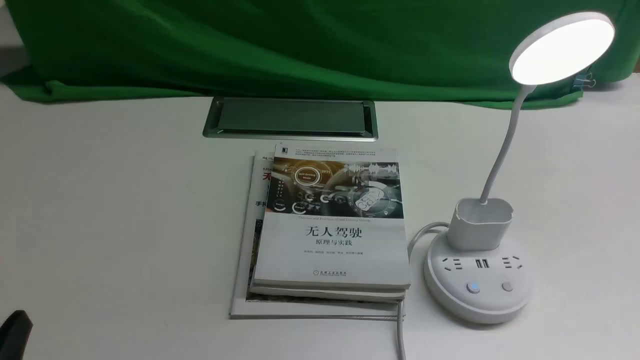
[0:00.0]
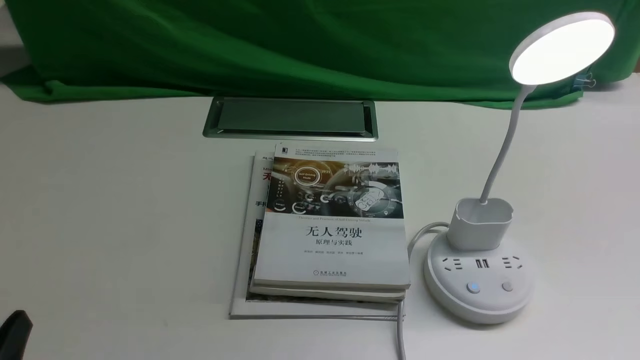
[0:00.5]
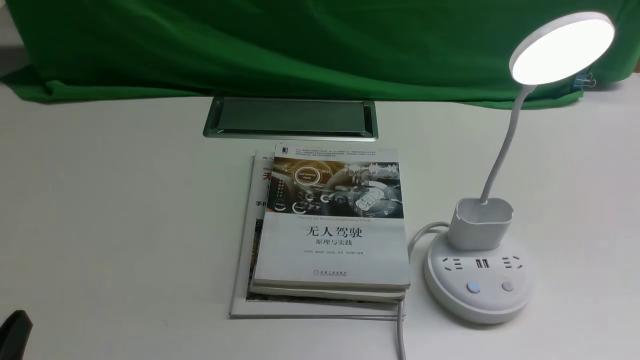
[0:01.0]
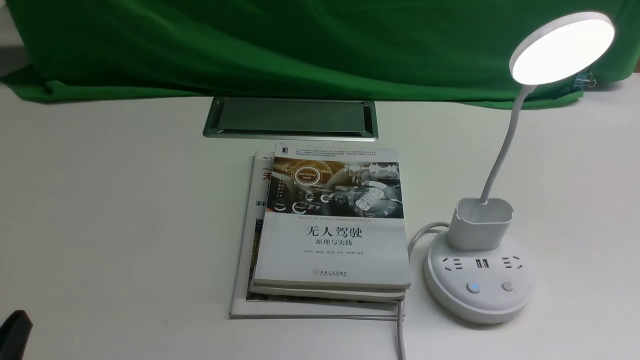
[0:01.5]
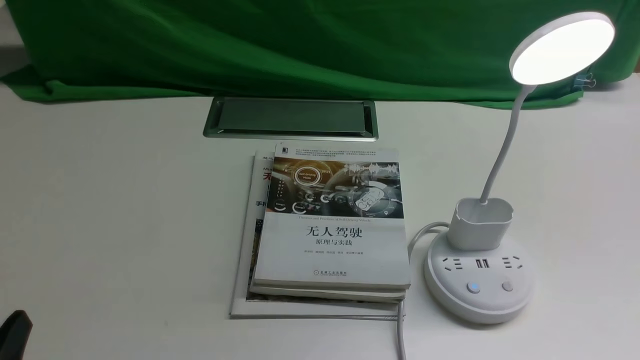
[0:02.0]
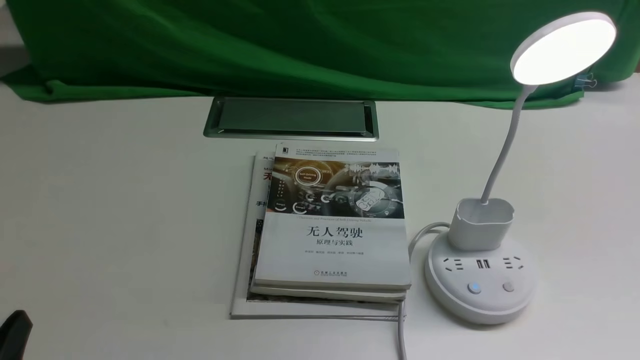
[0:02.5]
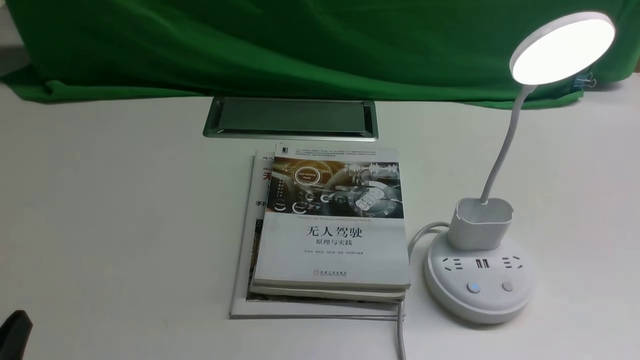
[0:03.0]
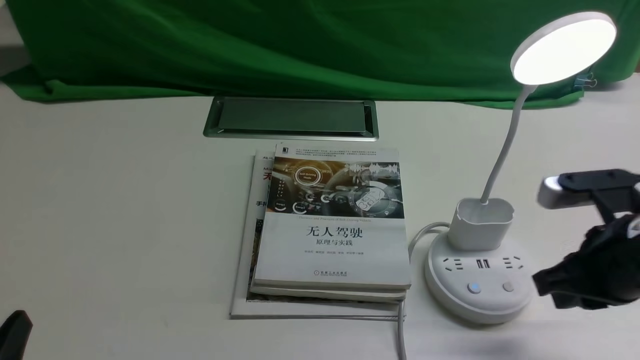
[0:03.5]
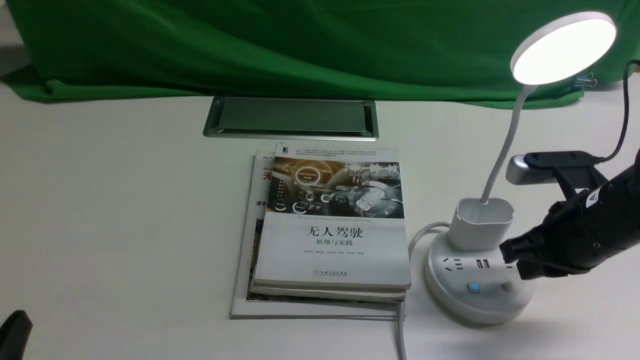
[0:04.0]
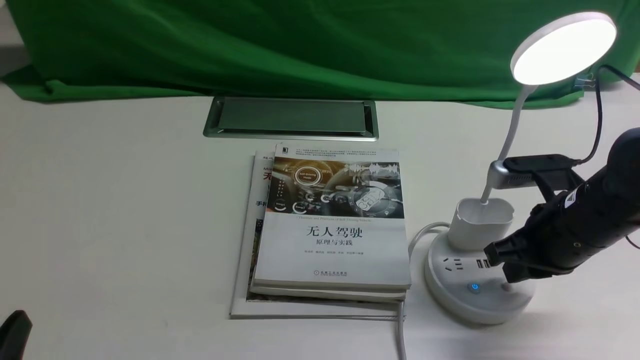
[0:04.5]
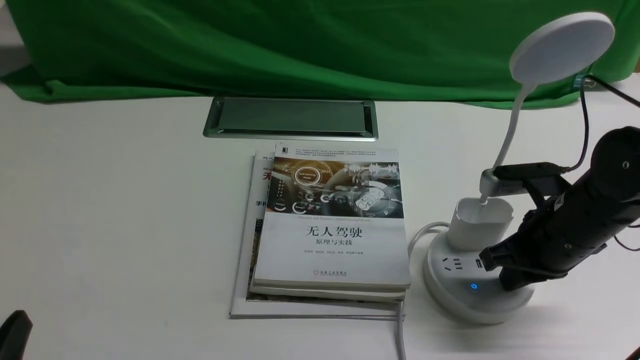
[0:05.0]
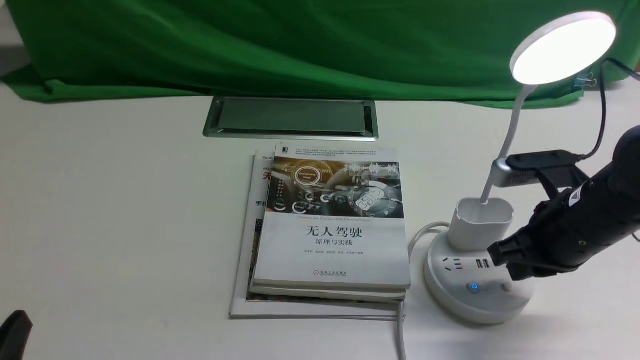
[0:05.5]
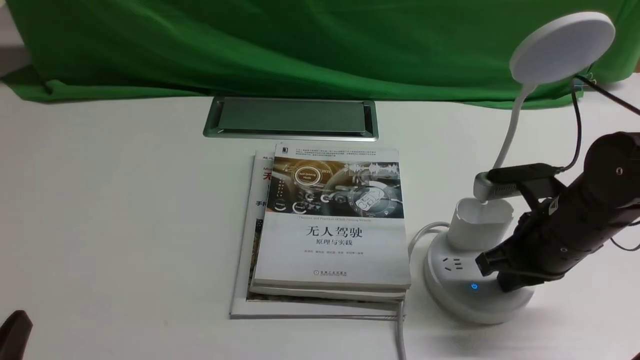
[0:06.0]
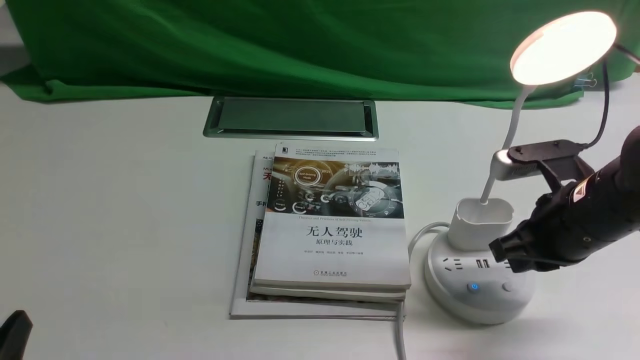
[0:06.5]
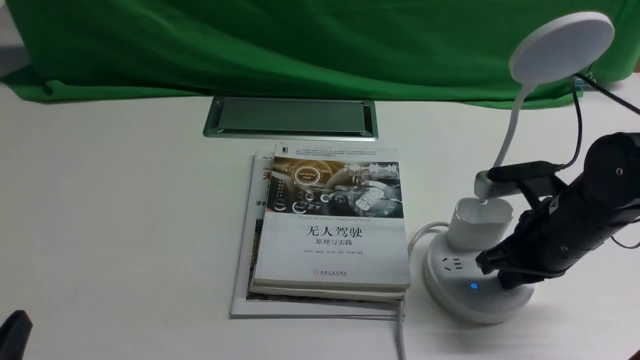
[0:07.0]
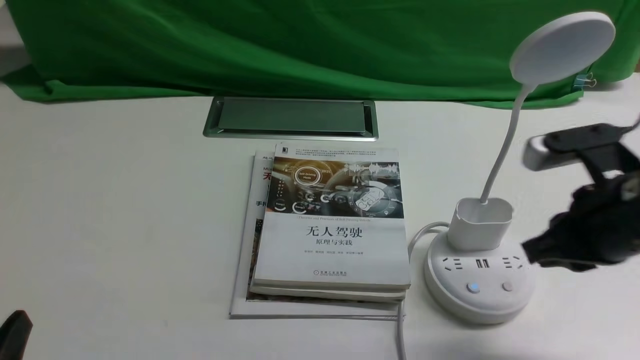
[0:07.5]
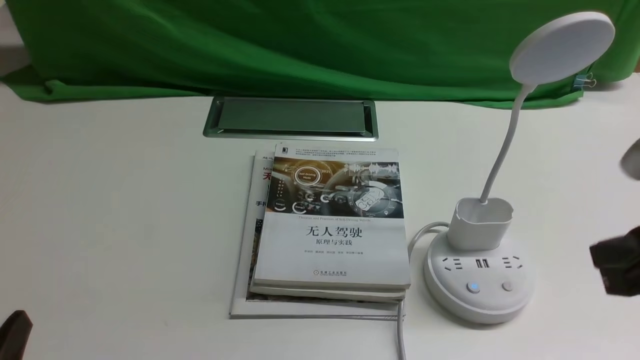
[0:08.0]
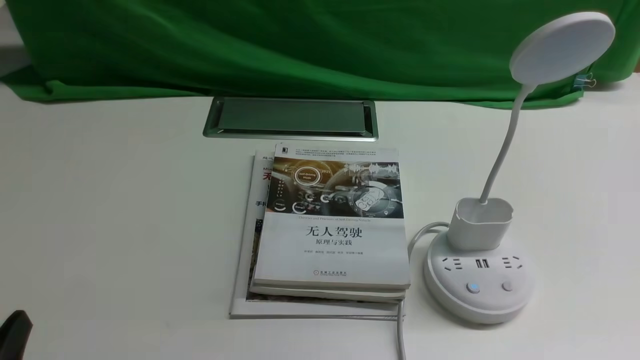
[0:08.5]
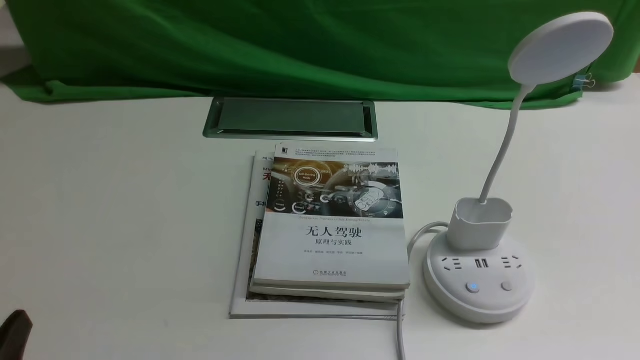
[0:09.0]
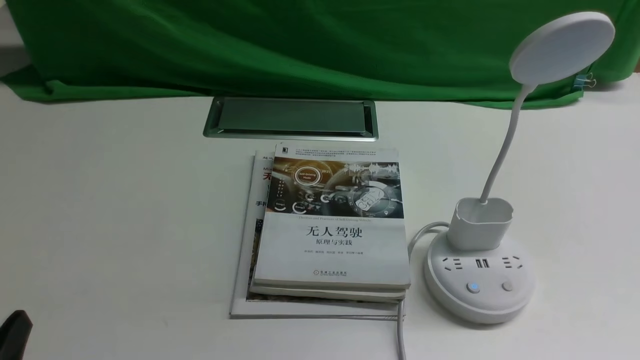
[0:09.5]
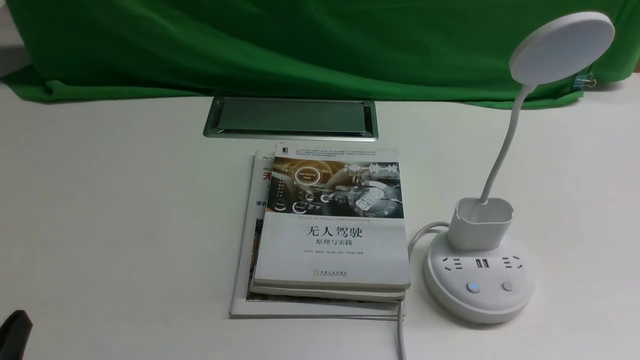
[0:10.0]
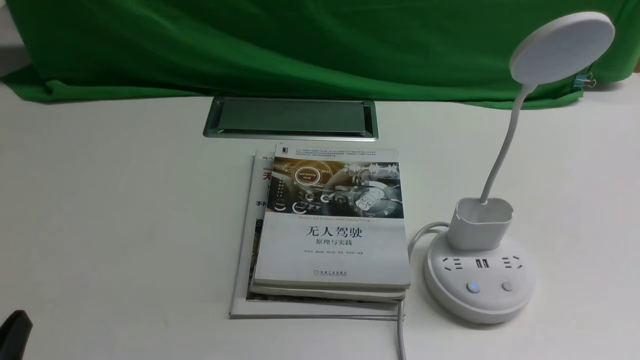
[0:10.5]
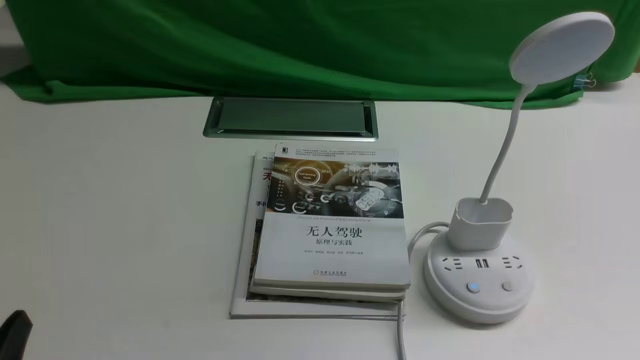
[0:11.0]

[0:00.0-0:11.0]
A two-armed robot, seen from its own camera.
Task of the whole recording: turn off the desk lamp on the white desktop by hand.
Step, 0:00.0 to 0:07.0: use the right arm to press the button switch on the lamp holder.
0:00.0 to 0:02.0: Both grippers stay put.
0:02.0 to 0:03.5: The right gripper travels forward by approximately 20 cm, and closes up.
0:03.5 to 0:05.5: The right gripper moves approximately 5 cm.
0:05.5 to 0:07.5: The right gripper travels upward by roughly 5 cm.
0:07.5 to 0:09.0: The right gripper shifts some 20 cm backward.
0:09.0 to 0:11.0: The two grippers keep their place.
